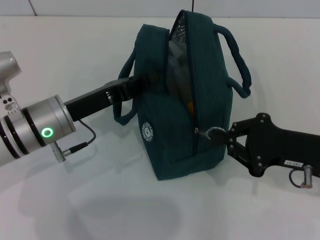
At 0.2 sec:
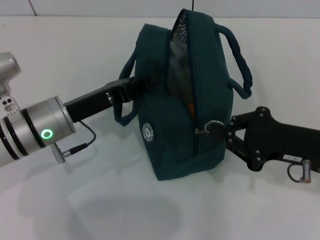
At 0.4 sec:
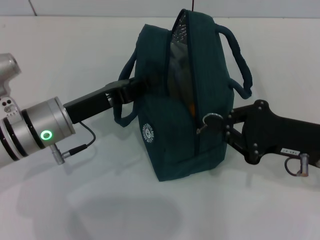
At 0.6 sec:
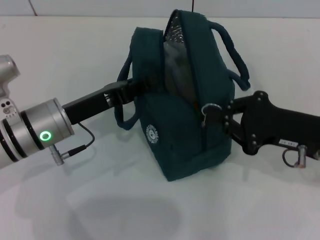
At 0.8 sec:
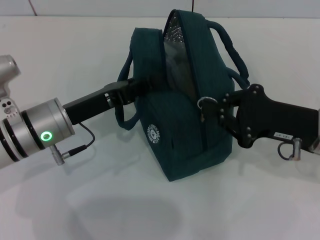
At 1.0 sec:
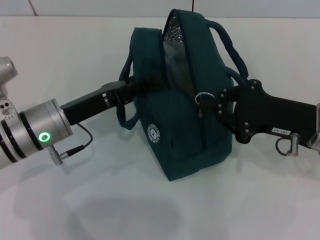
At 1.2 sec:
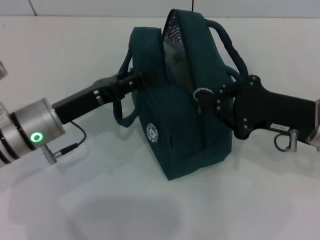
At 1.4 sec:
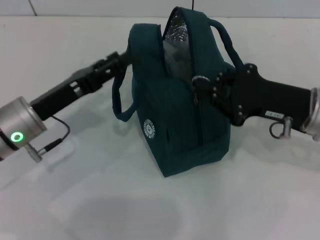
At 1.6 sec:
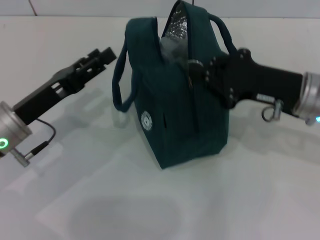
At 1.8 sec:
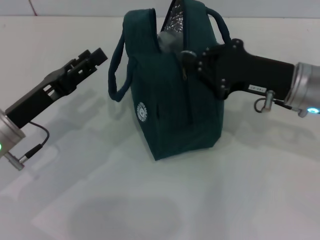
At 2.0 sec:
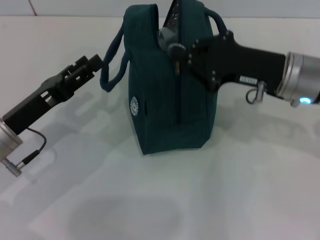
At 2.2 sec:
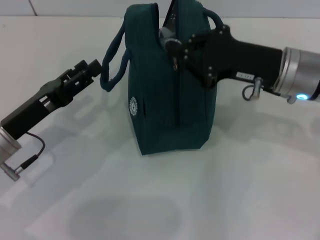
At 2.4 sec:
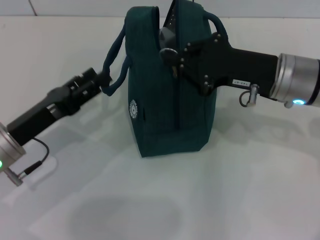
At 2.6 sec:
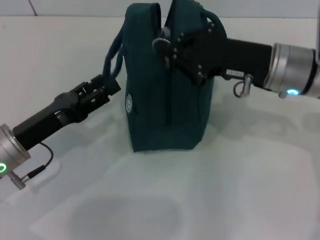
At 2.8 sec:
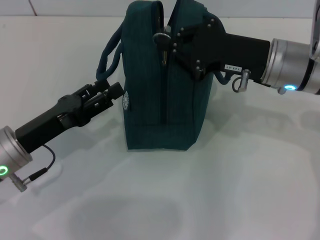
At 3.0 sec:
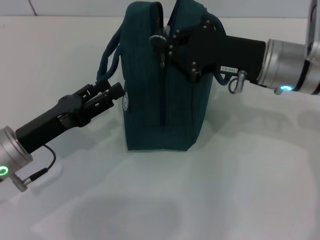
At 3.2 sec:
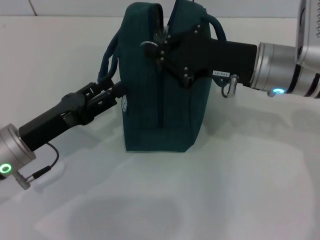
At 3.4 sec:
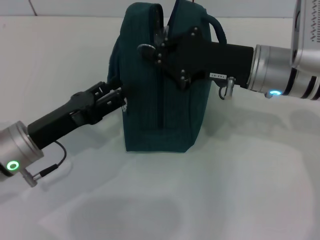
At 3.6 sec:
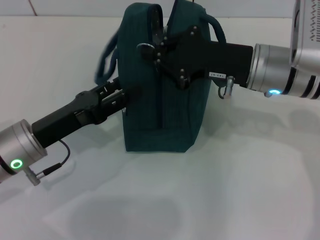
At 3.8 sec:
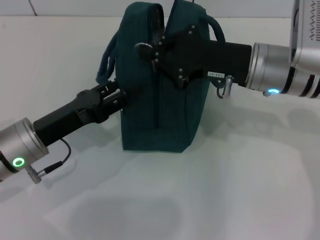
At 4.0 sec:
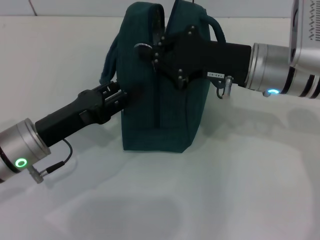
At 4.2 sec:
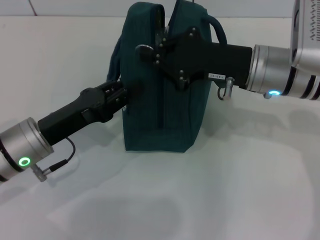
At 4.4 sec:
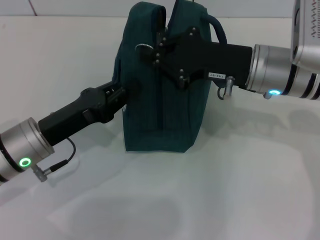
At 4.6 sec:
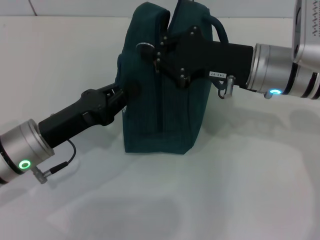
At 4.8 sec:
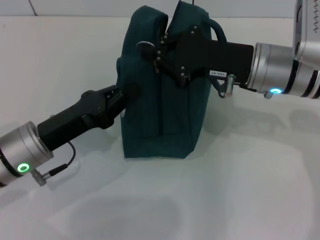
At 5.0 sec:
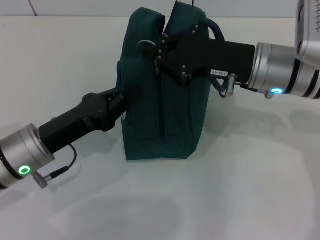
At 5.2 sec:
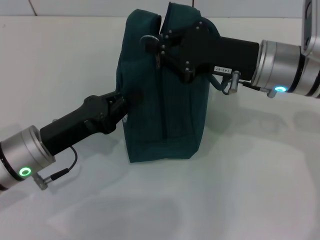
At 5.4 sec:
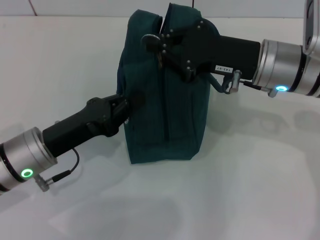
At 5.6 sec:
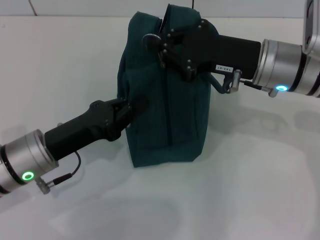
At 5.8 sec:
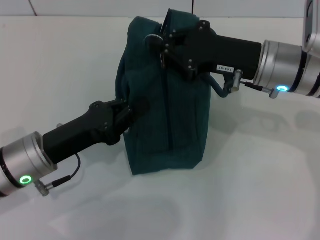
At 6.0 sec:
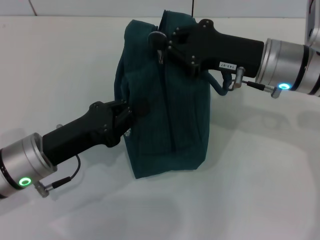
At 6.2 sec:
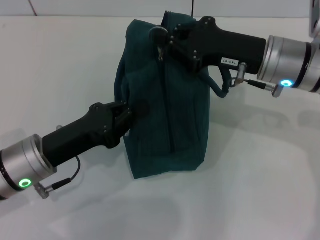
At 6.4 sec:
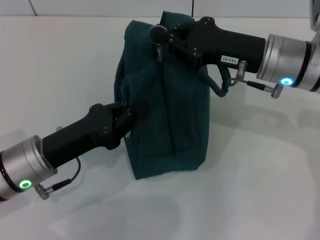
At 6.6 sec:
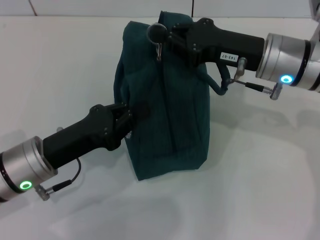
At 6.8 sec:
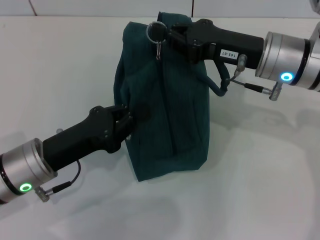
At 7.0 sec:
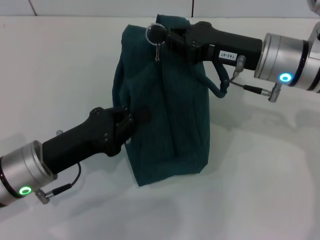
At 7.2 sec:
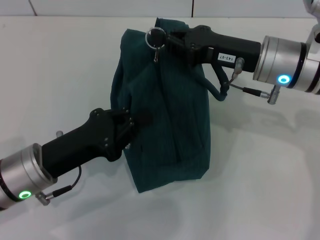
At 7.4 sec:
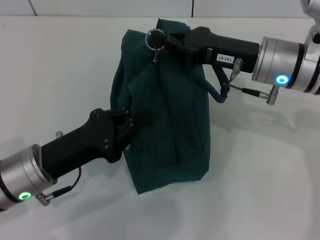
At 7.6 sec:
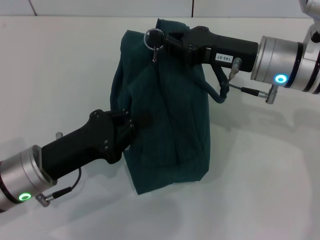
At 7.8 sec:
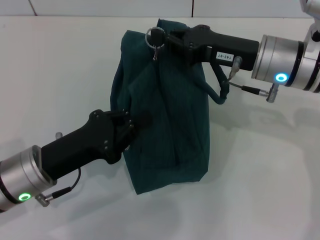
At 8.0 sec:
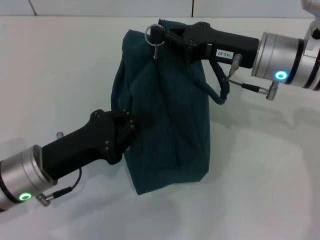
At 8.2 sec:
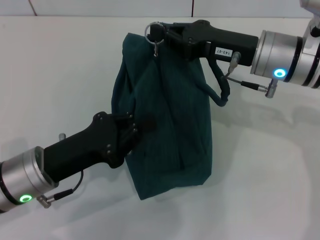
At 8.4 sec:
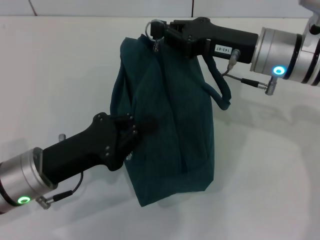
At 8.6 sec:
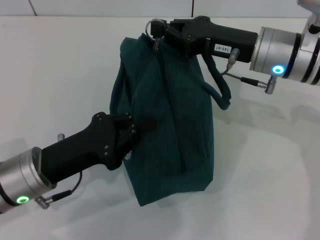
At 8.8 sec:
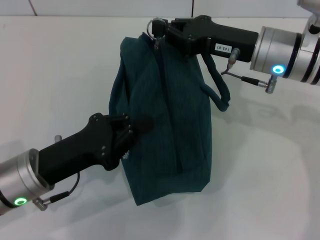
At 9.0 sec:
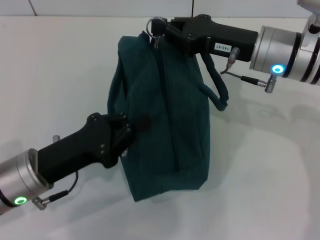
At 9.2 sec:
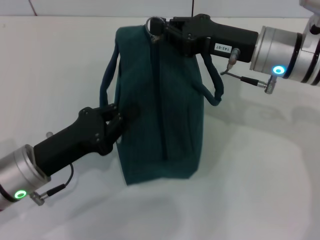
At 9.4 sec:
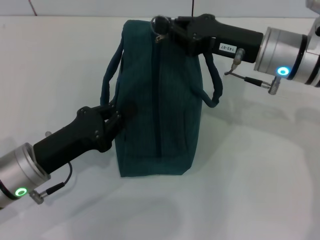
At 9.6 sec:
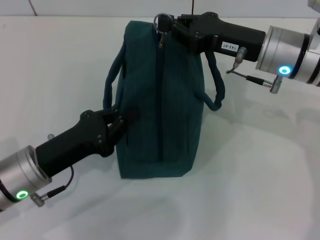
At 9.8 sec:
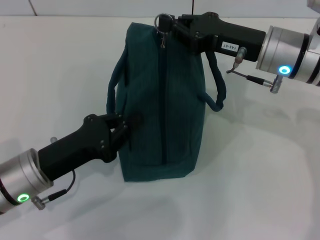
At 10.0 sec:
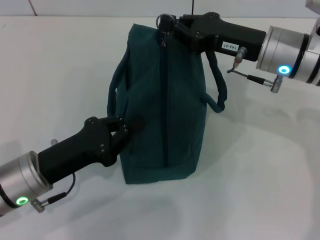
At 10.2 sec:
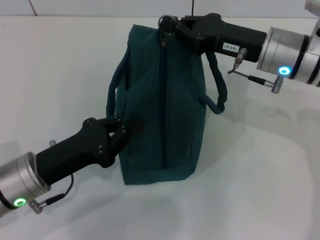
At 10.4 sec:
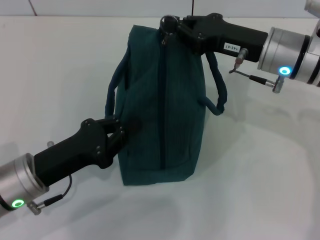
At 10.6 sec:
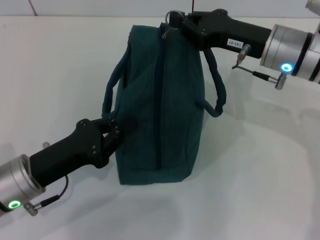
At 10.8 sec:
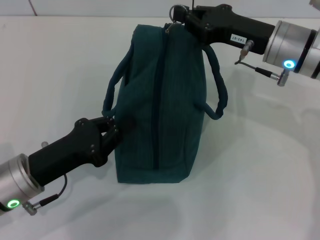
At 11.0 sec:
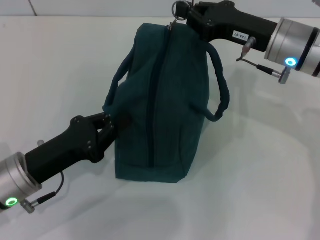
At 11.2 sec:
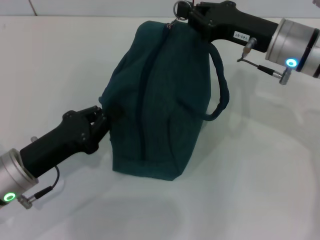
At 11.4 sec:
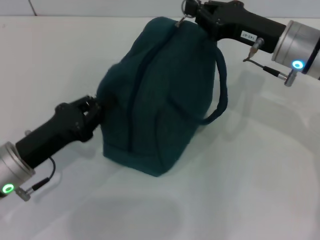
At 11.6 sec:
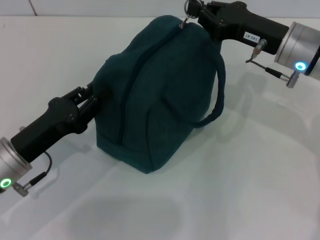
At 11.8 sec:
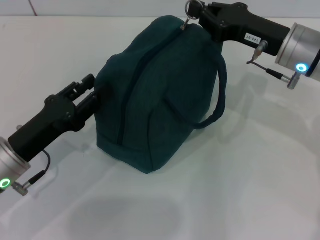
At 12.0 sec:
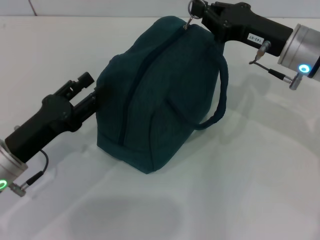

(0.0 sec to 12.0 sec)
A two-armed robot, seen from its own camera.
0.0 sec - 1.6 sec: The right gripper heads forward, covering some 5 cm. Meanwhile the left gripper changes place by approximately 5 cm, and opens up.
1.6 sec - 3.0 sec: The right gripper is displaced to the left by roughly 5 cm.
3.0 sec - 4.4 sec: The left gripper closes up.
4.4 sec - 6.0 sec: The left gripper closes its fingers.
7.6 sec - 10.4 sec: The grippers stay close to where they were, moving slightly.
10.4 sec - 12.0 sec: The left gripper opens.

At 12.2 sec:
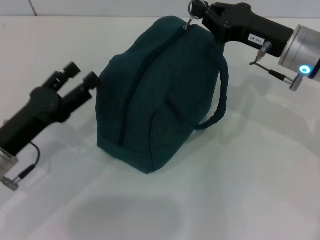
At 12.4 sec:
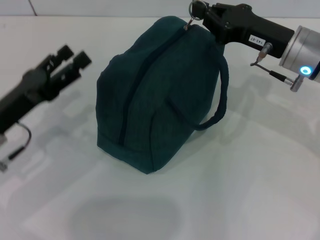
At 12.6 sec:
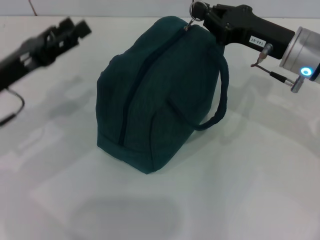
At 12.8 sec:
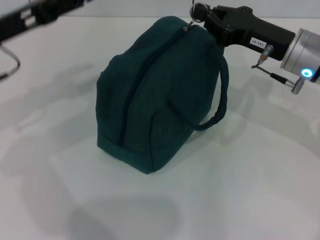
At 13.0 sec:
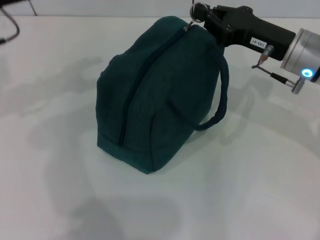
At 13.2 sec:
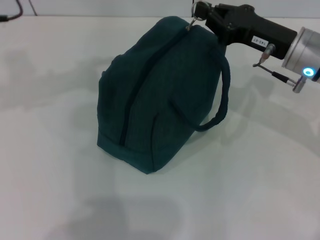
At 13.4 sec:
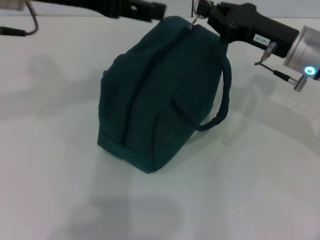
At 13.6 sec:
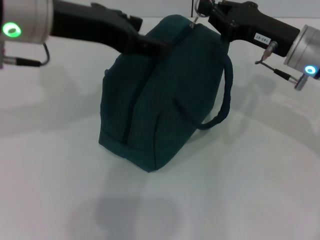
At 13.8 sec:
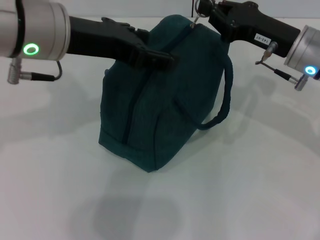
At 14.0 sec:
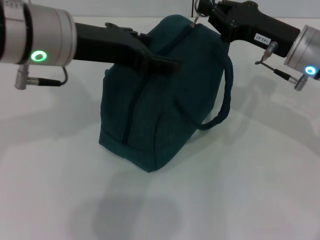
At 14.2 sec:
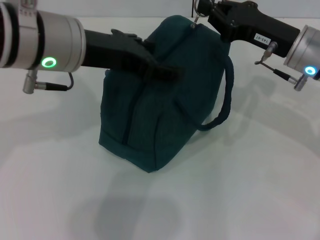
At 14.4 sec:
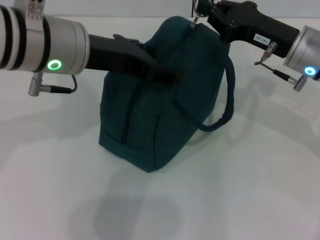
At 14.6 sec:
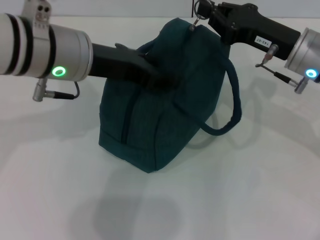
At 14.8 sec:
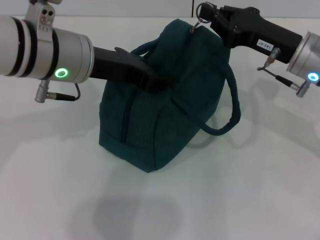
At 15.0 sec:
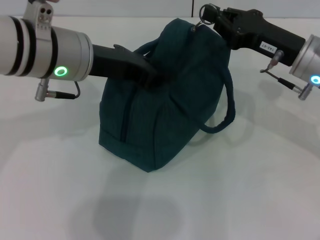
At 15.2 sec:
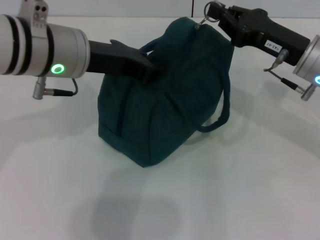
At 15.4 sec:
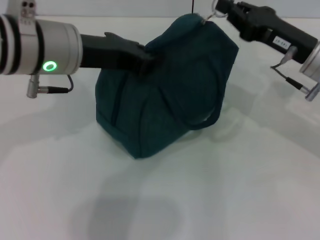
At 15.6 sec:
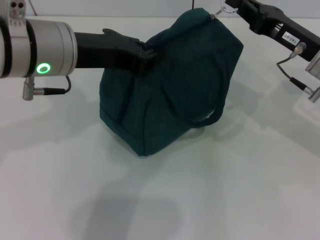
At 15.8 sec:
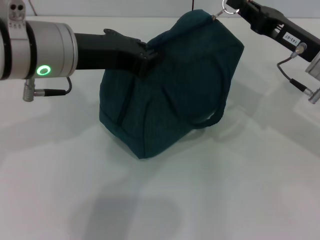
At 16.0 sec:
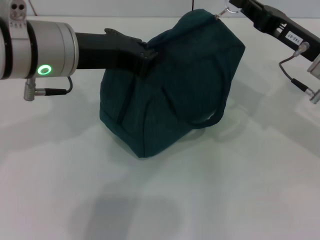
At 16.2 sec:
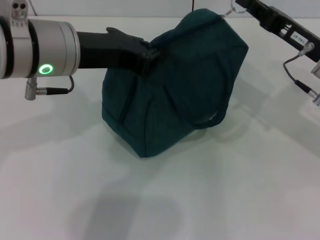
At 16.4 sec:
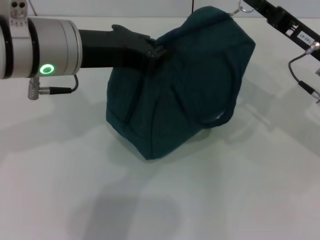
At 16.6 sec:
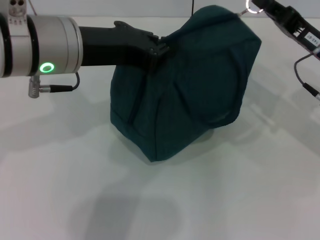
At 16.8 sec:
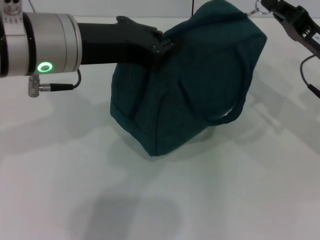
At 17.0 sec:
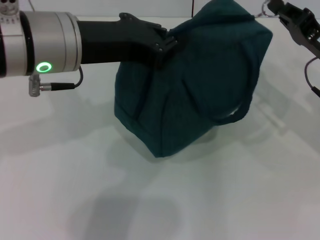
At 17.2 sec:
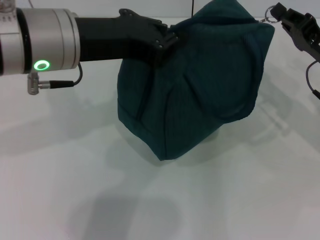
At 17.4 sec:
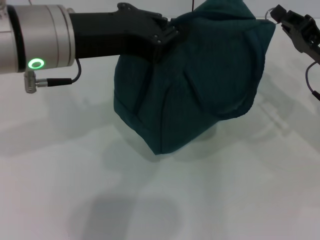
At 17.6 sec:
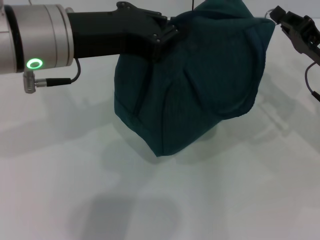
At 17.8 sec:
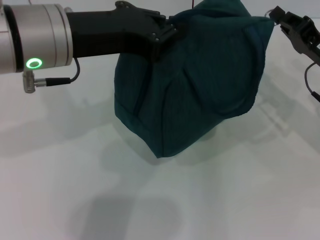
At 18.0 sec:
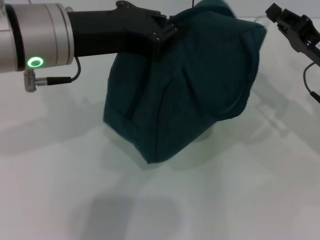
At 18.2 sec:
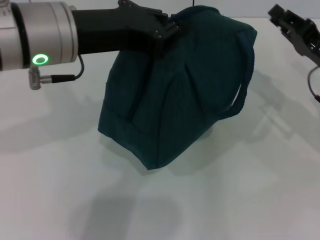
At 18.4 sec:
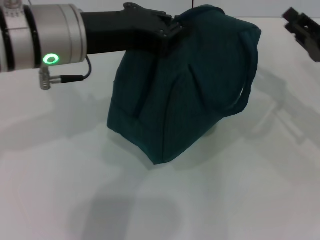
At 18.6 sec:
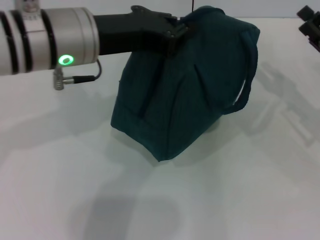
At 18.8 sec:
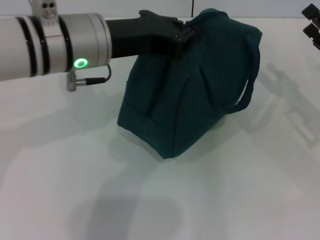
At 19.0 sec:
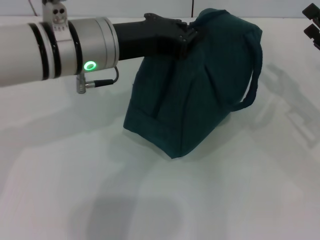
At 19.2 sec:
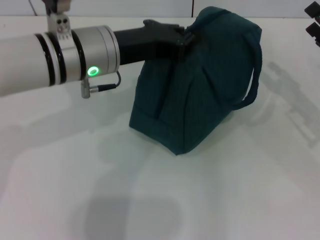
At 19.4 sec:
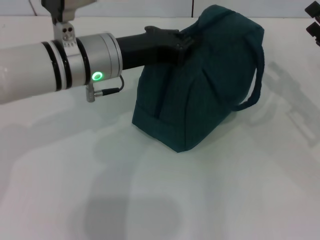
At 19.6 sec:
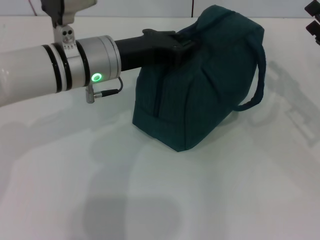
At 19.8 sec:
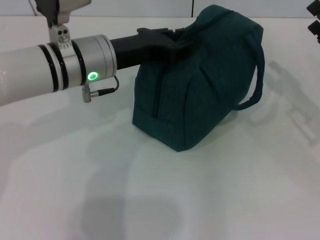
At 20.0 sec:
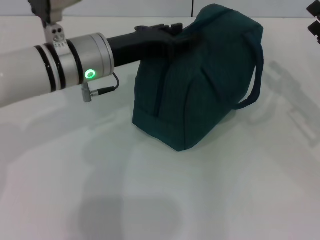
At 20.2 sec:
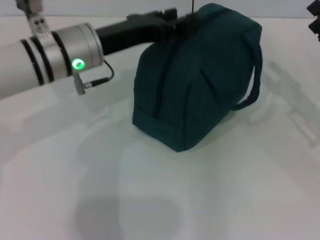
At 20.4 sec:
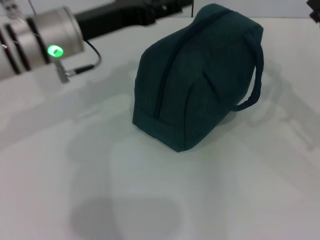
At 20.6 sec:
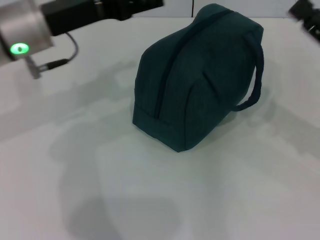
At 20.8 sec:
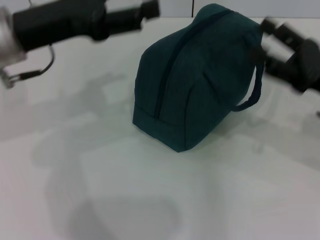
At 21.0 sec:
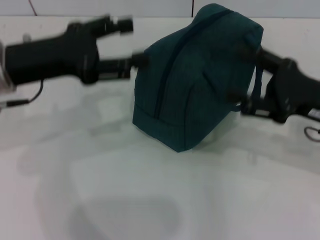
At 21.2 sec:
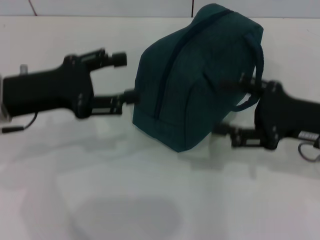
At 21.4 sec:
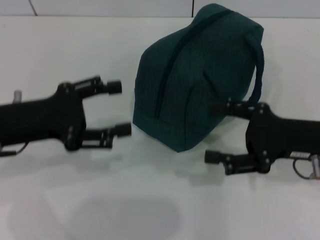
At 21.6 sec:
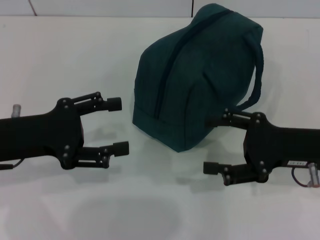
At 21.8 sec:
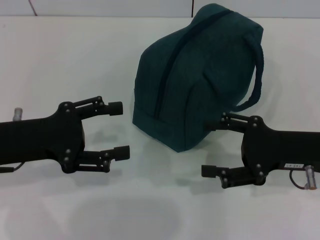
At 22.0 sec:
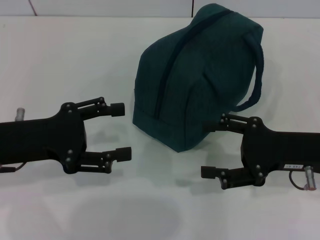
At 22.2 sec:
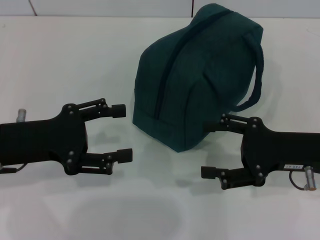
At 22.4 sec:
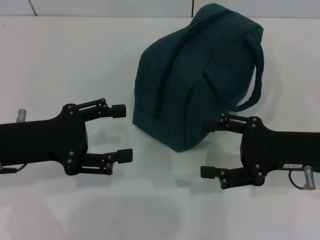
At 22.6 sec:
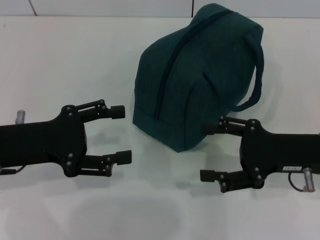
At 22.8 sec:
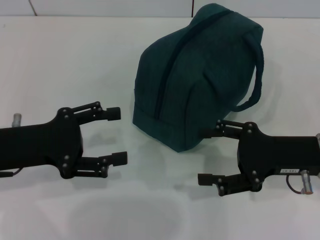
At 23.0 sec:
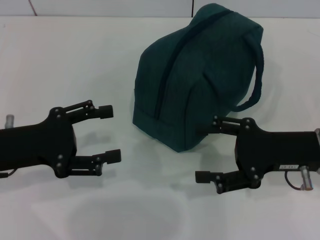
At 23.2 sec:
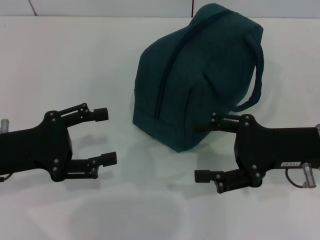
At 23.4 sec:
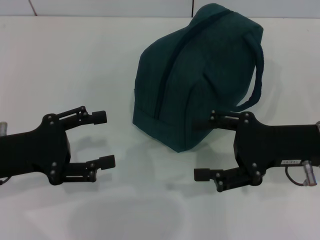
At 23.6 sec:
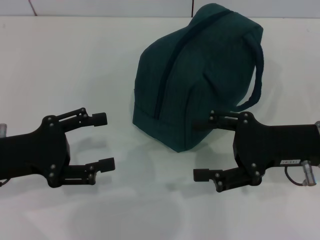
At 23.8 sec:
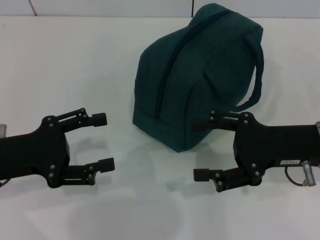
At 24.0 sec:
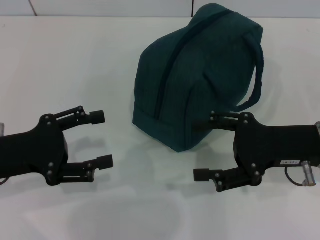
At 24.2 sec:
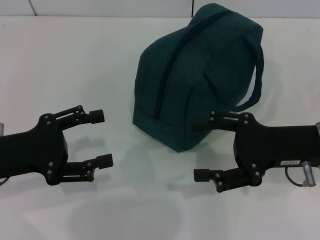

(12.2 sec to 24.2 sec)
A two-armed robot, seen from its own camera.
Step, 12.2 sec - 17.8 sec: Zip up the lunch bag with your right hand.
Step, 18.2 sec - 20.2 sec: Hold the lunch bag with your left hand.
12.2 sec - 13.8 sec: The left gripper shifts approximately 25 cm upward, to the right and forward.
13.8 sec - 15.2 sec: The left gripper closes up.
16.6 sec - 18.2 sec: The grippers stay close to where they were, moving slightly.
18.2 sec - 19.8 sec: The right gripper opens, while the left gripper goes about 10 cm downward and forward.
19.8 sec - 21.2 sec: The left gripper travels to the left and backward by some 15 cm, and opens up, while the right gripper moves to the left, about 5 cm.
22.6 sec - 24.2 sec: There are only small adjustments of the grippers.
